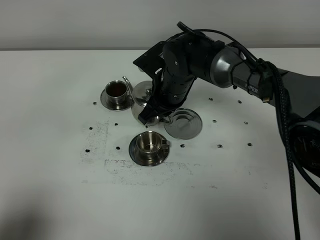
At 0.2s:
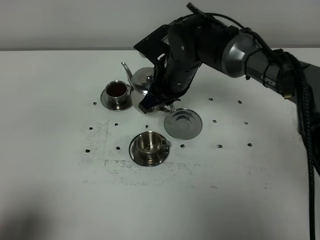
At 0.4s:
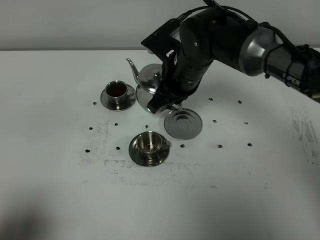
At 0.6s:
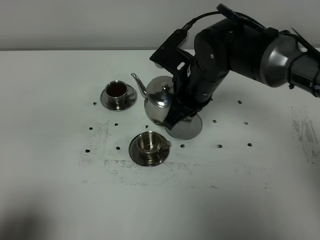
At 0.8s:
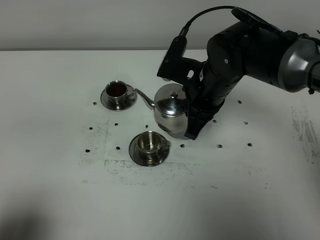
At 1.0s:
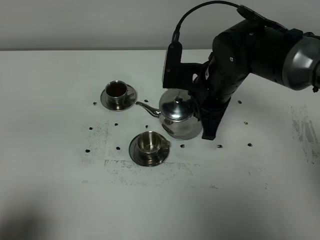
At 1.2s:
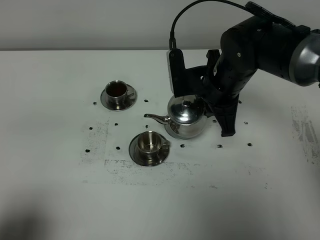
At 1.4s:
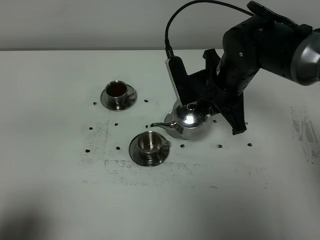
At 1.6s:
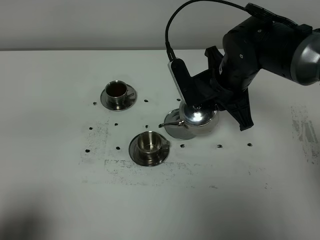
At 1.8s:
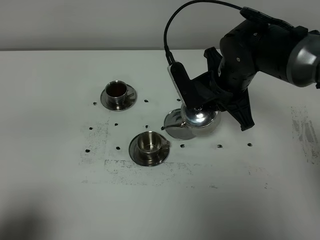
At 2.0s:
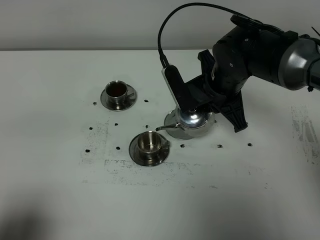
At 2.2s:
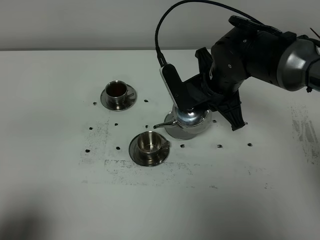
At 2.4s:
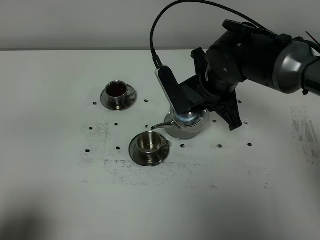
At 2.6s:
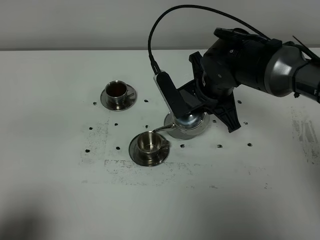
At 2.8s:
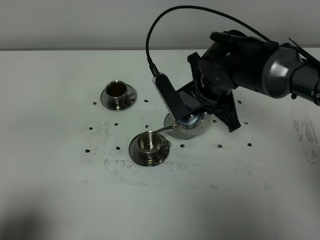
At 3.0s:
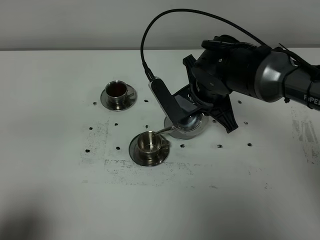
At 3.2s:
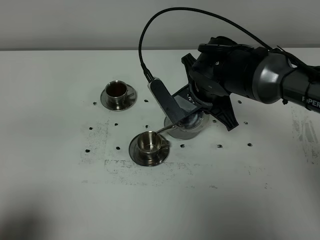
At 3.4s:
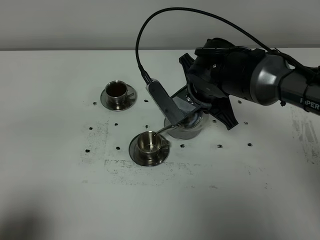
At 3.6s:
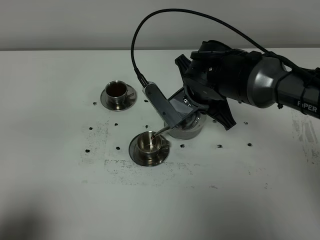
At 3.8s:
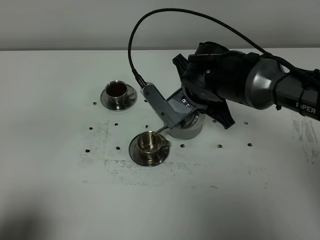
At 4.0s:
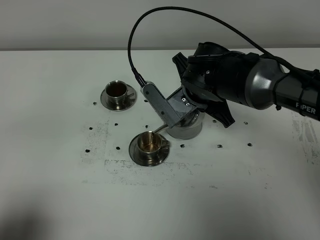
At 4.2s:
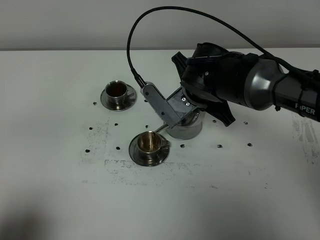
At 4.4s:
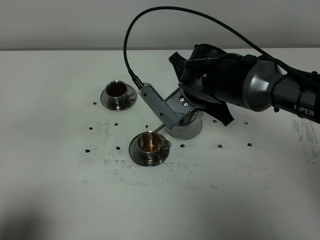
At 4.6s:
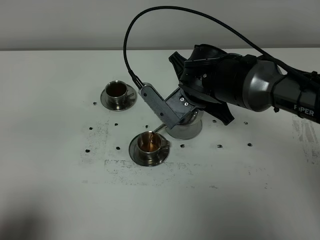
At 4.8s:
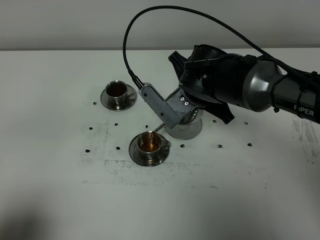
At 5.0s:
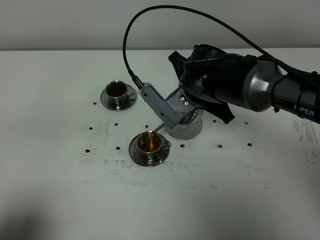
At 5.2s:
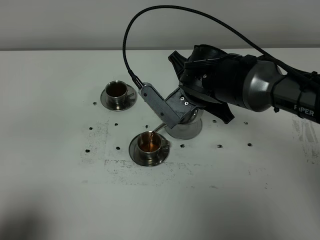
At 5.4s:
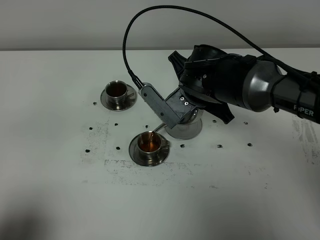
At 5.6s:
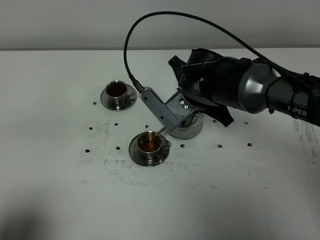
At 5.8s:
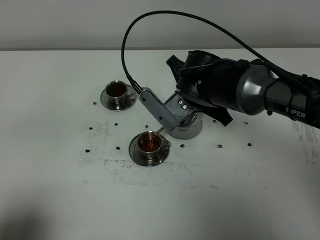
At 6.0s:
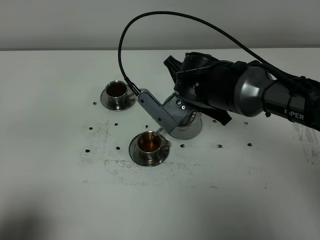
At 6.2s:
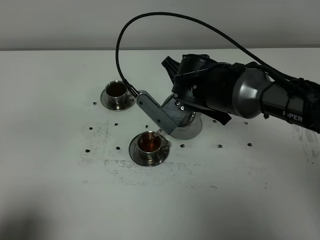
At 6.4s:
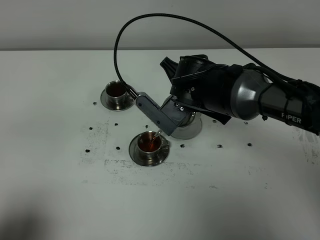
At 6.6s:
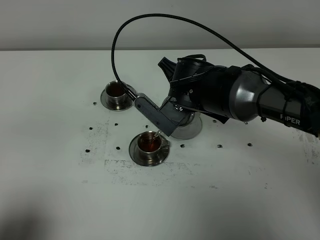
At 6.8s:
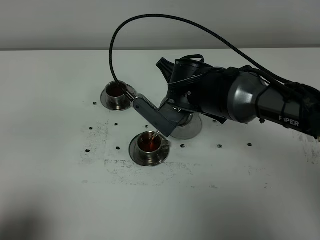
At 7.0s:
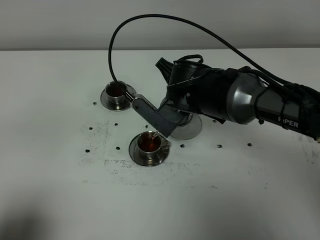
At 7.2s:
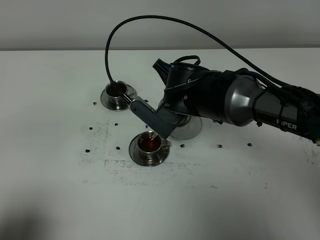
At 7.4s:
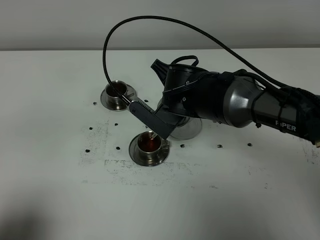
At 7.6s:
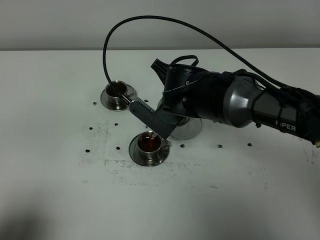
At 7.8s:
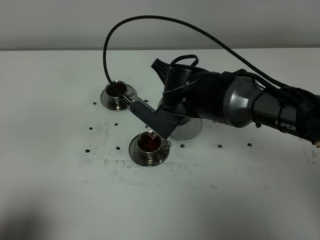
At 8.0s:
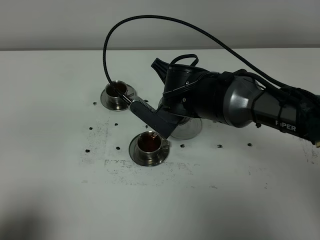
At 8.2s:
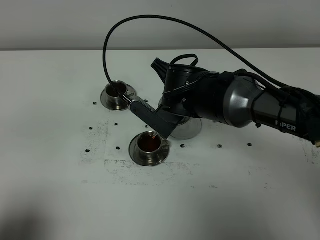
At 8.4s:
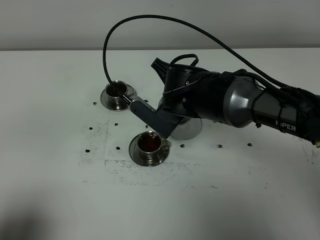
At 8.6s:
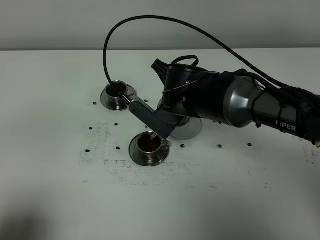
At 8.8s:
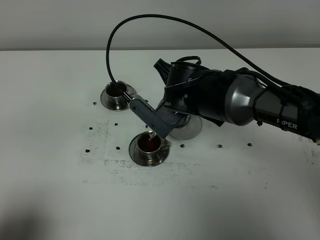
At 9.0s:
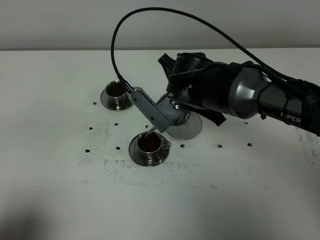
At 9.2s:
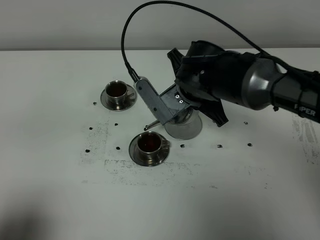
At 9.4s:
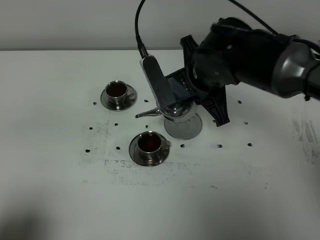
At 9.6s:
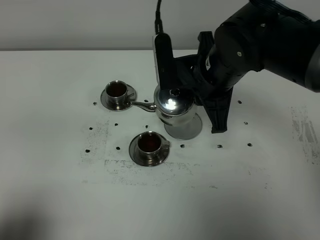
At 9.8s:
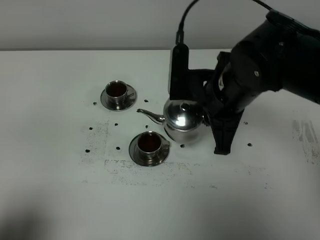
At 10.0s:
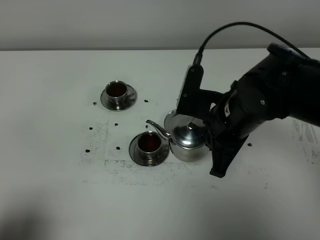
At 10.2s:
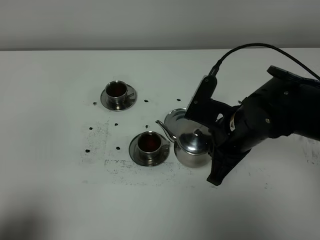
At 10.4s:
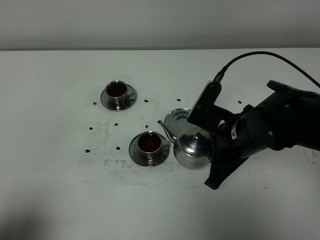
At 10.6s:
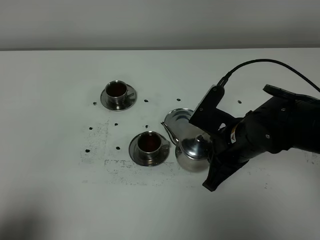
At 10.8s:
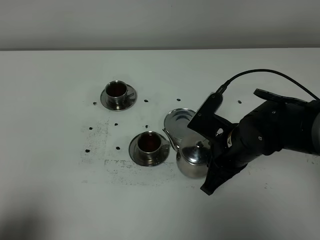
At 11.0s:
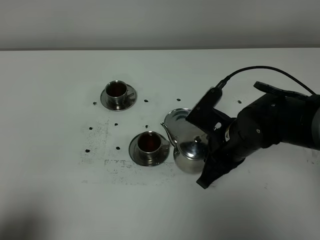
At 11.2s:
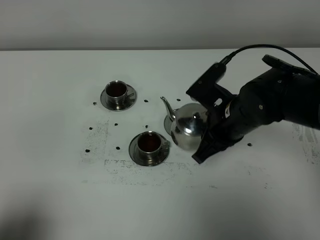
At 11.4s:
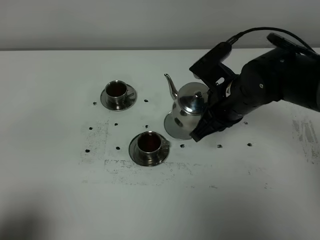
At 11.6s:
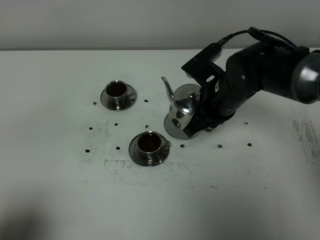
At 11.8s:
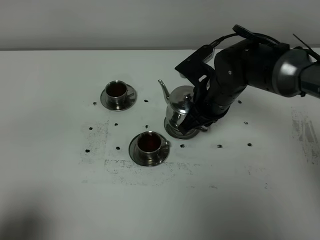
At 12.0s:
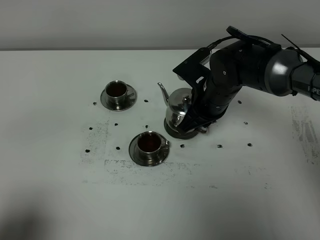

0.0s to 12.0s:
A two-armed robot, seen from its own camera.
Task of the whole recording: grasp the stainless steel teapot and pour the tea into the two stainless steel teacups one by one, put the stainless steel teapot back in its original place.
Step, 0.0s to 9.2s: Pour tea into the teacup with the right gripper.
0.0s to 1.6s: The right gripper is displaced to the right, upward and backward by roughly 10 cm.
1.6s to 3.0s: There are only small adjustments of the grippers.
3.0s to 4.4s: The grippers stay close to where they were, moving slightly.
4.4s to 6.0s: Both grippers stay put.
6.0s to 9.0s: The grippers move only a little.
9.0s to 10.4s: The right gripper moves backward and to the right, approximately 10 cm, and travels upward and back again, some 5 cm each way.
10.4s to 12.0s: The right gripper goes about 10 cm forward.

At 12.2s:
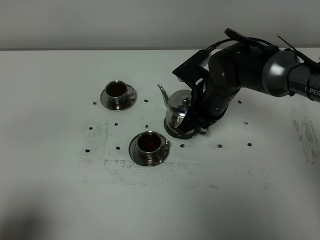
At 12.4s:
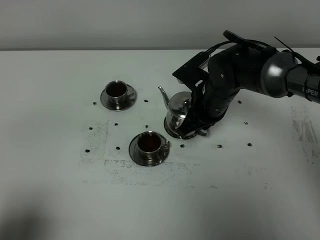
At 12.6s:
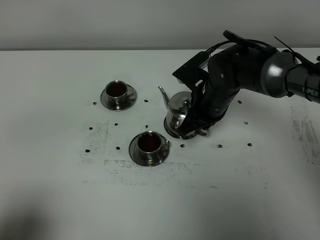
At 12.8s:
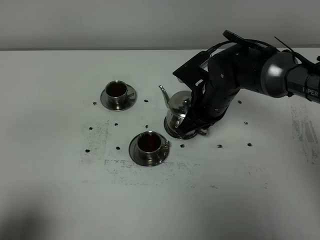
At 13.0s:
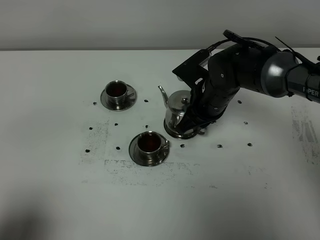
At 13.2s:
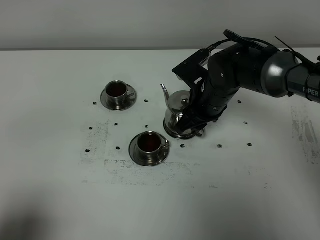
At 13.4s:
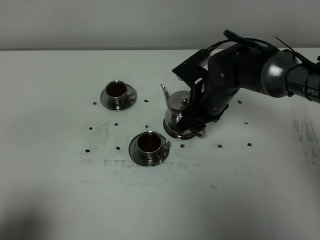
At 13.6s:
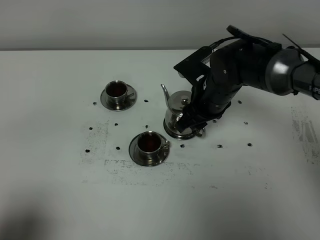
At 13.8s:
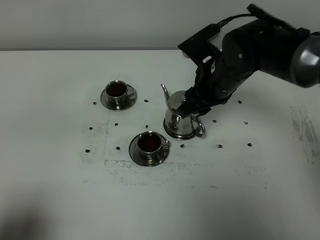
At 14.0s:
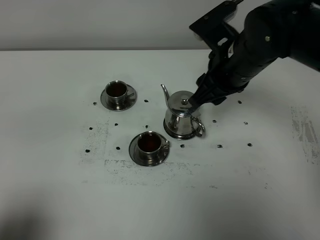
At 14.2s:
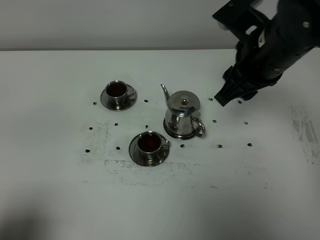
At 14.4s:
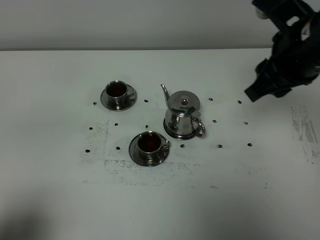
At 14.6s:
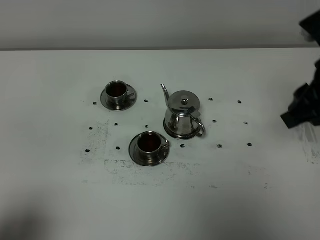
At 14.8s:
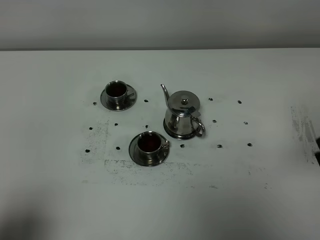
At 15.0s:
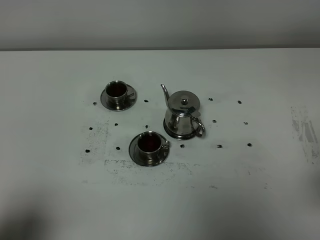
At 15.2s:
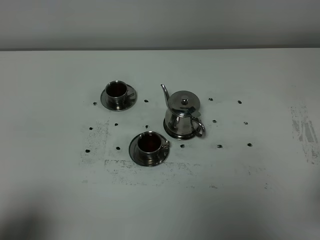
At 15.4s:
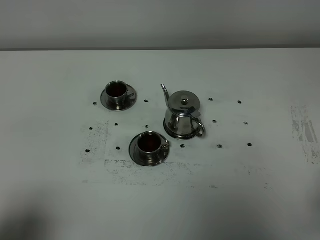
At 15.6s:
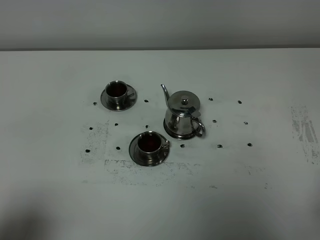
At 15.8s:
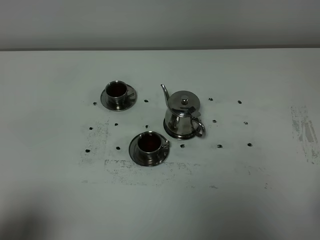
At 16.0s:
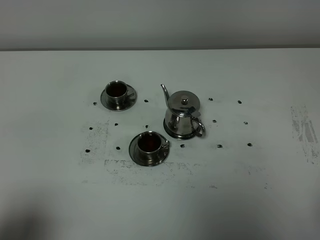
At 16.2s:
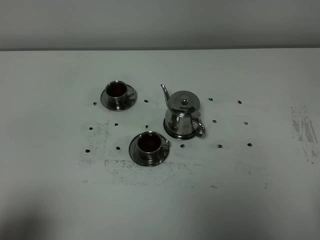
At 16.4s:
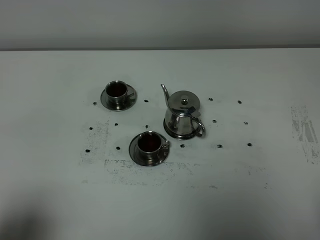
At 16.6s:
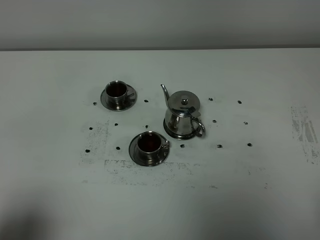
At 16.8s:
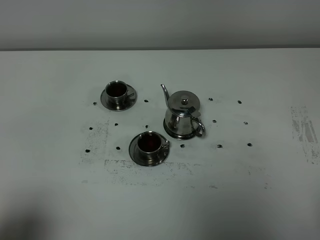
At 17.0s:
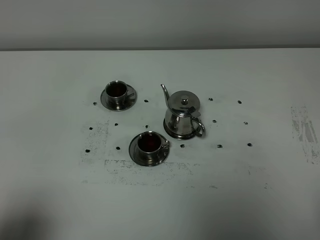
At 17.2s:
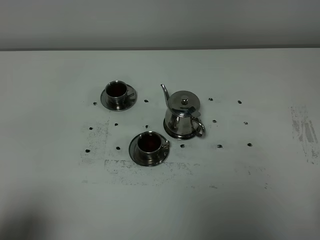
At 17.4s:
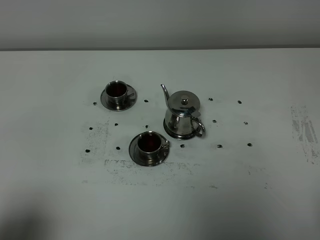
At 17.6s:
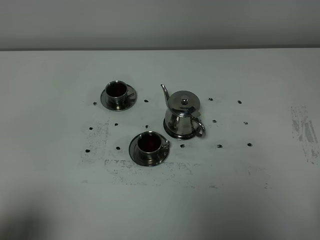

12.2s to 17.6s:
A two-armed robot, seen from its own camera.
Task of the whole recording: grasp the stainless steel teapot and pour the tea into the two stainless steel teacups one by one, put the stainless steel teapot back in its original place.
12.2s to 13.6s: The right gripper opens.
13.6s to 15.0s: The right gripper heads backward, to the right and upward, covering approximately 35 cm, and closes its fingers.
16.2s to 17.6s: Neither gripper changes place.

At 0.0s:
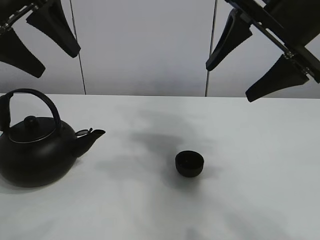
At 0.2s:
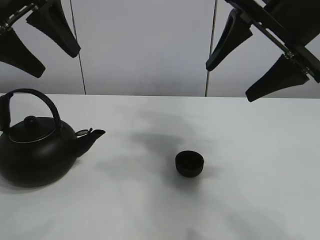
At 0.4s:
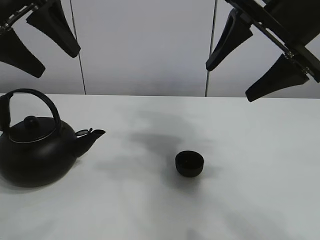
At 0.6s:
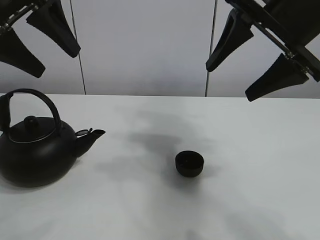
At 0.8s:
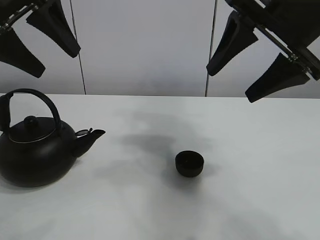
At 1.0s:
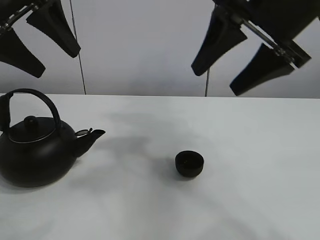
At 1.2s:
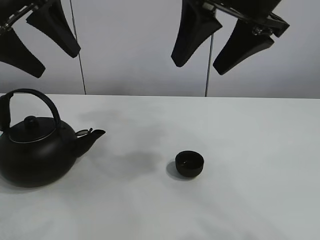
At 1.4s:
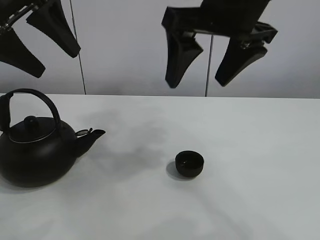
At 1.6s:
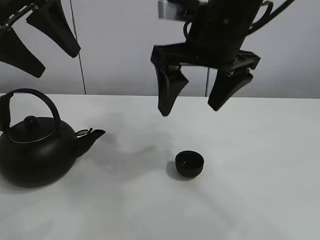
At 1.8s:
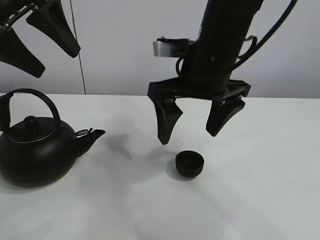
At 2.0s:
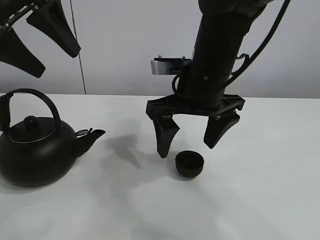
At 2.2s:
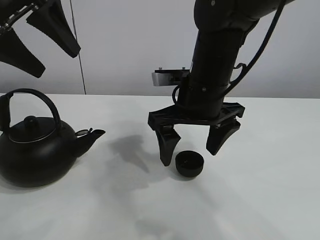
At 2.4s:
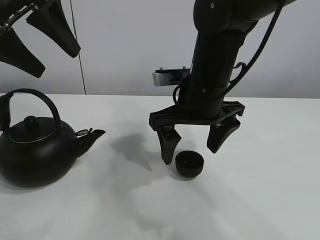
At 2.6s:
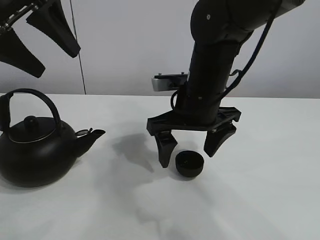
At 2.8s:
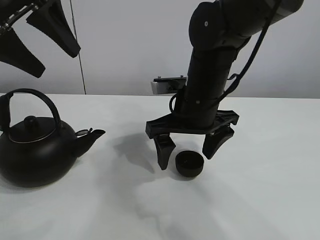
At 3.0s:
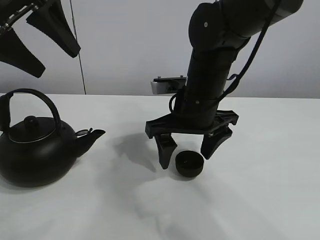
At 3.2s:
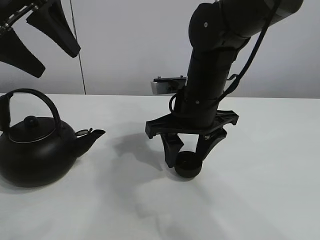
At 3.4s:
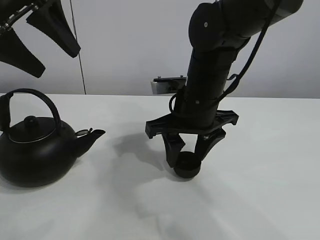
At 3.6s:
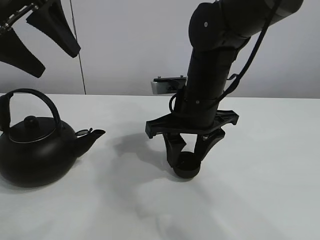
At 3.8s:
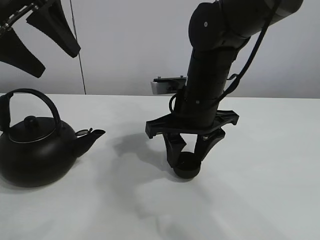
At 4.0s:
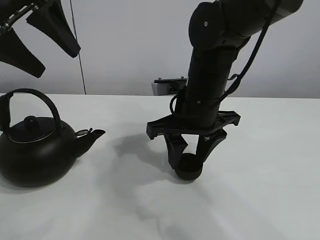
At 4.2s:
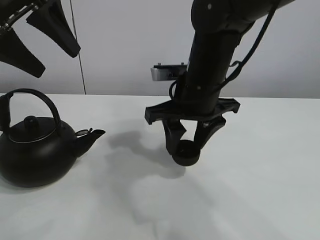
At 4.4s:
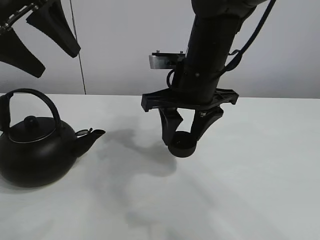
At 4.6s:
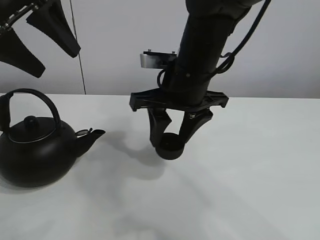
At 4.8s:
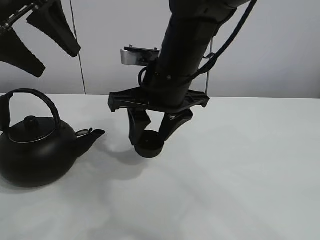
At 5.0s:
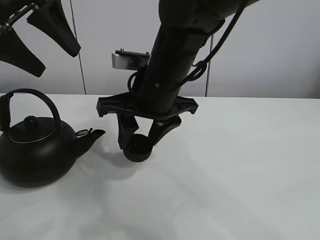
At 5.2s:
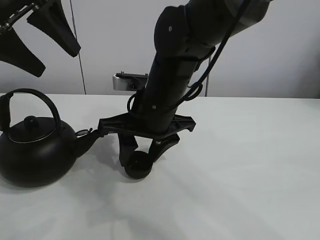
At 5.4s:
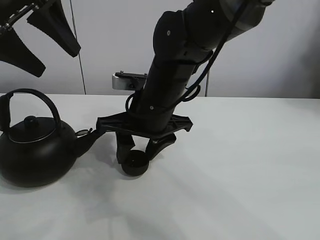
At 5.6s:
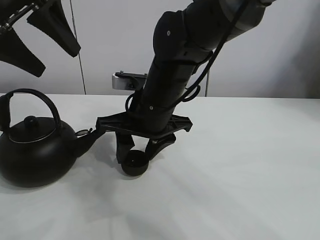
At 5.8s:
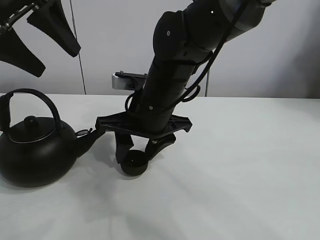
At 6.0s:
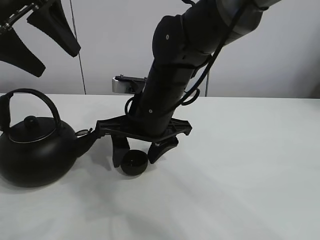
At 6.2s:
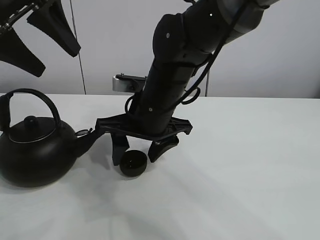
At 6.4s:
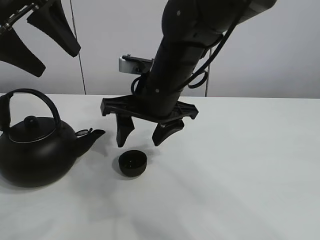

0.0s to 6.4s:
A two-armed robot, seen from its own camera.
Task of the whole recording: pour tea into the teacup.
Step, 0.0s to 4.0s: Pick up the teacup with the right gripper.
Step, 4.2s to 6.0s: Place the teacup in the center of view with the right gripper.
1.6s to 3.2s: The right gripper goes some 10 cm downward, and closes its fingers.
3.2s to 4.8s: The right gripper moves about 5 cm.
4.8s to 6.4s: The right gripper opens up.
